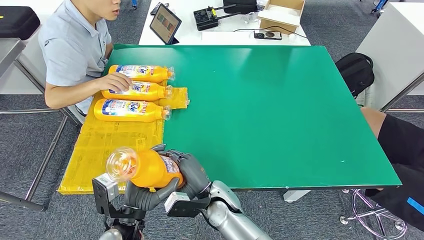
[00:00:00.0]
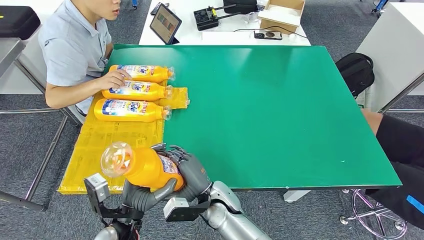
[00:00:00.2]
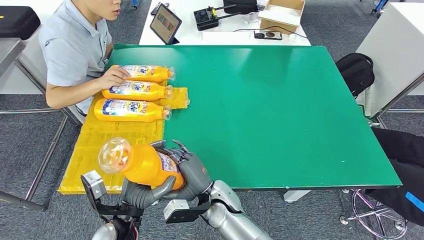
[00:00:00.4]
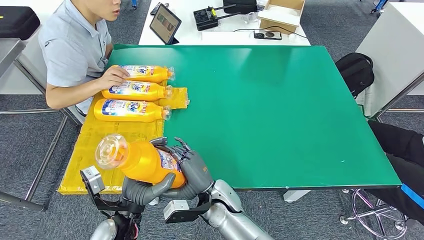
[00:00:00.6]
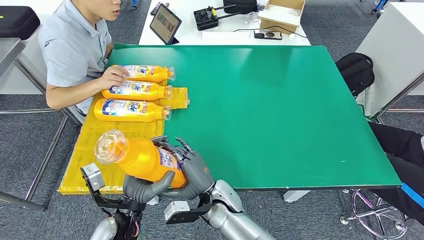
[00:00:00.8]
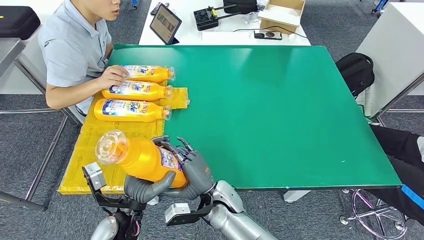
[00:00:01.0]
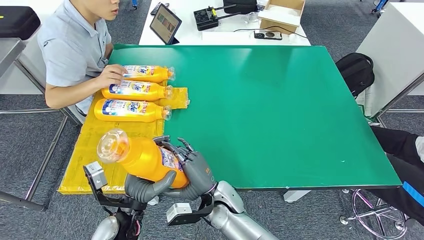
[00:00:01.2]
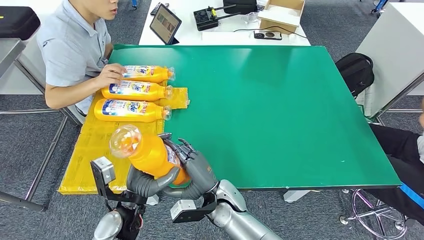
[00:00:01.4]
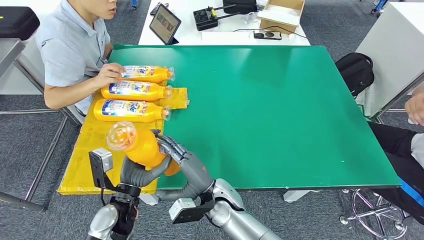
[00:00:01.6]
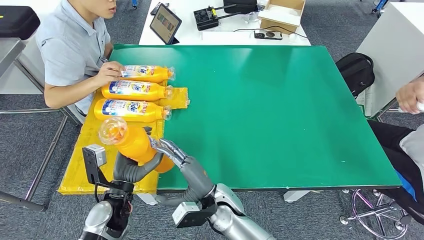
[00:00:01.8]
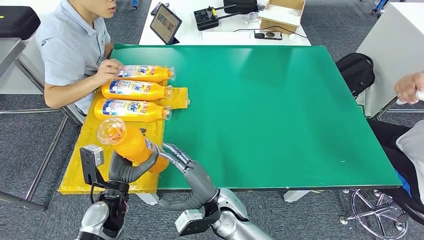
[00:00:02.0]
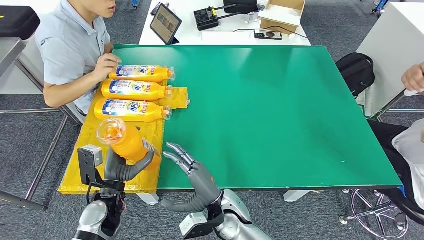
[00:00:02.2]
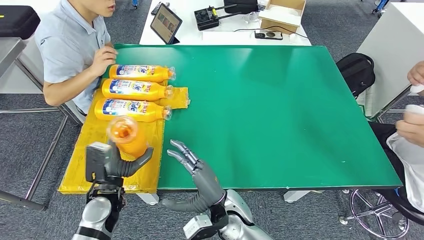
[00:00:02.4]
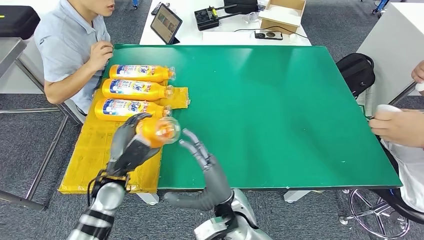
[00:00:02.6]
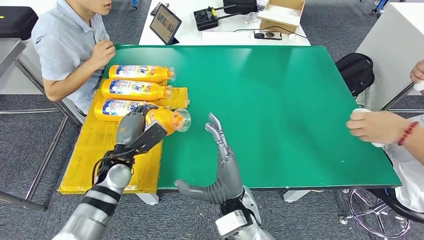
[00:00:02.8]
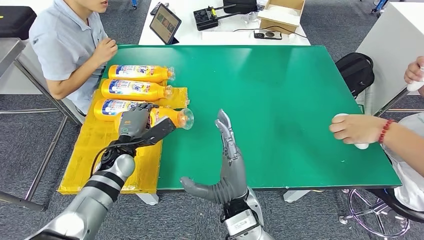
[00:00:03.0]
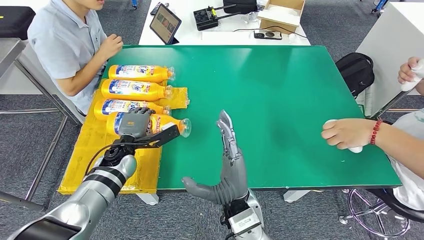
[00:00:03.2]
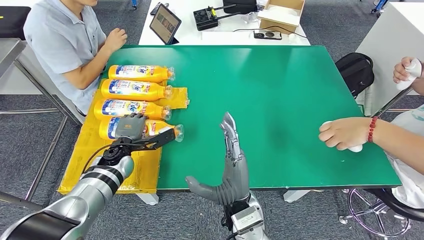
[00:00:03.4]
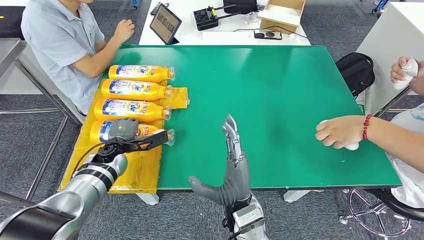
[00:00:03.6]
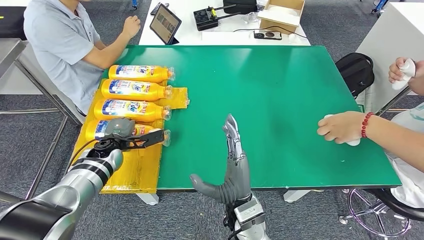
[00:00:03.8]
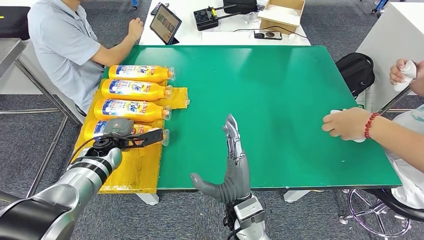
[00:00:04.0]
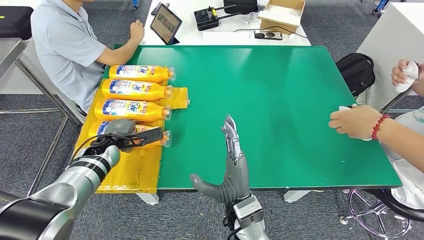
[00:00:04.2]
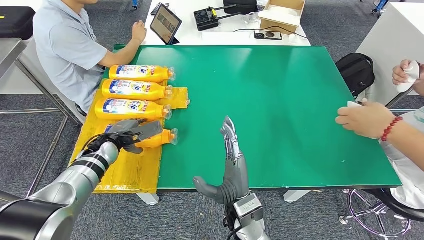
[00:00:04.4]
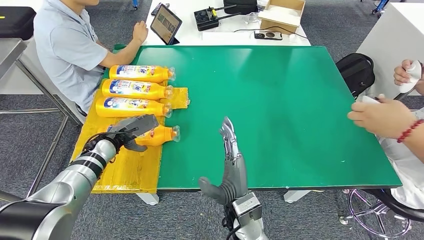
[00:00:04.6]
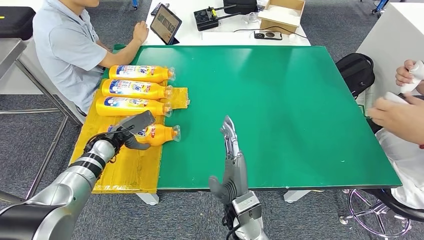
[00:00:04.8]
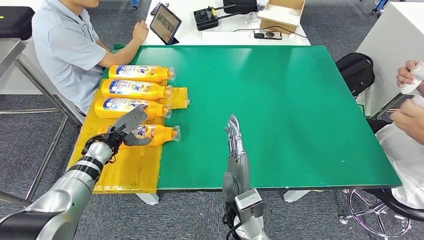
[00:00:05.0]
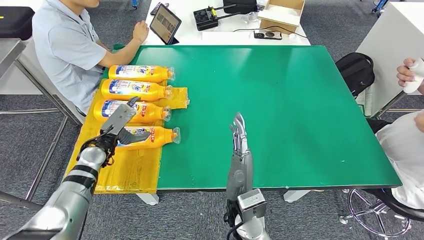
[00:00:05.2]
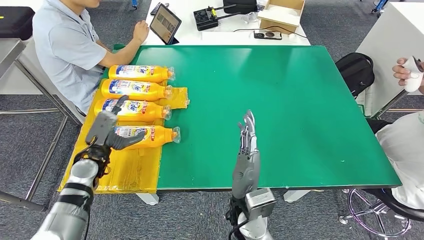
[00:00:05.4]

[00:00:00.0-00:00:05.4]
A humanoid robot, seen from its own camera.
Step, 00:00:00.0 to 00:00:05.4: Flip the fast-moving consumer goods bottle to the front side.
00:00:00.0 to 00:00:01.4: The hands make only small movements.
00:00:04.0 to 00:00:05.4: The left hand is displaced backward by approximately 5 cm.
